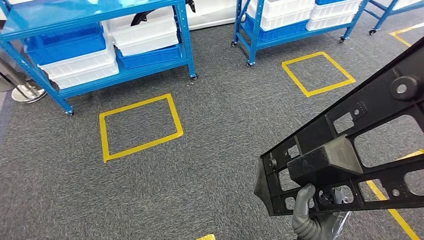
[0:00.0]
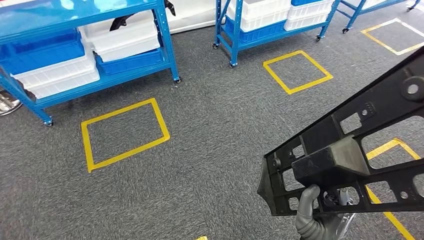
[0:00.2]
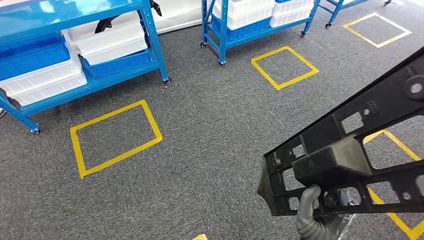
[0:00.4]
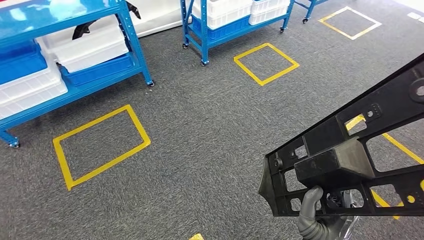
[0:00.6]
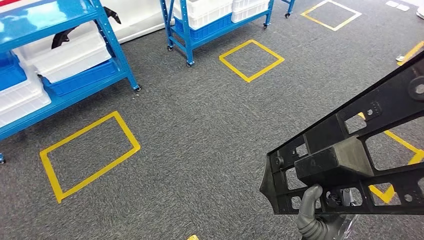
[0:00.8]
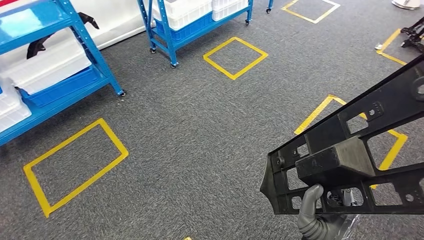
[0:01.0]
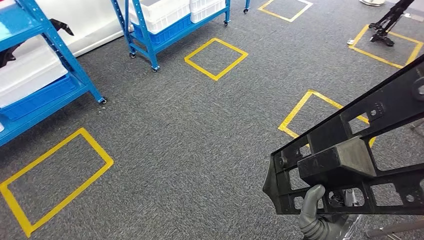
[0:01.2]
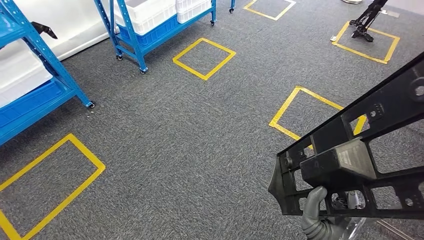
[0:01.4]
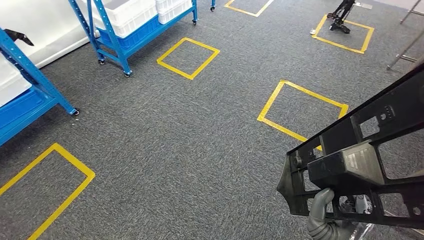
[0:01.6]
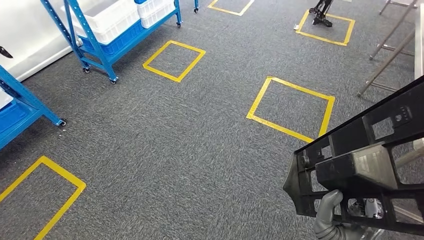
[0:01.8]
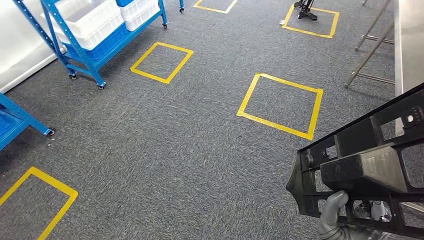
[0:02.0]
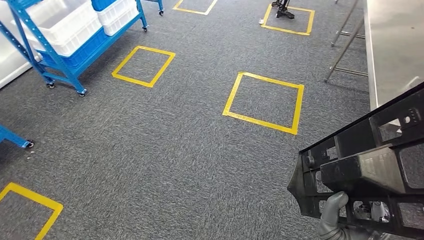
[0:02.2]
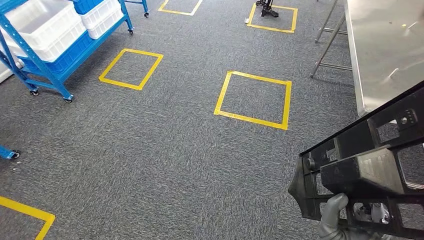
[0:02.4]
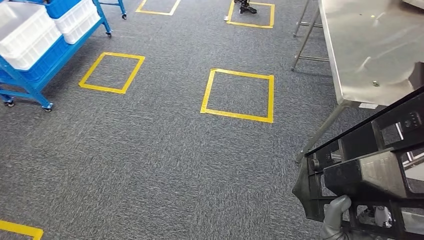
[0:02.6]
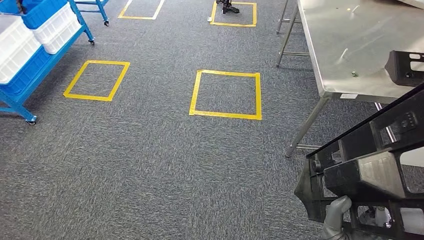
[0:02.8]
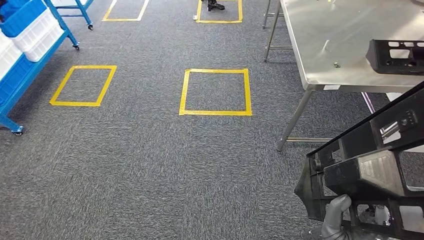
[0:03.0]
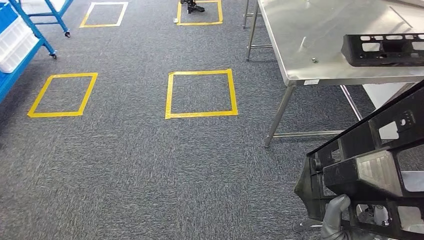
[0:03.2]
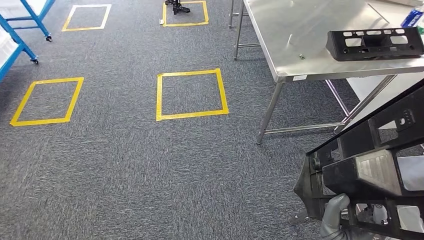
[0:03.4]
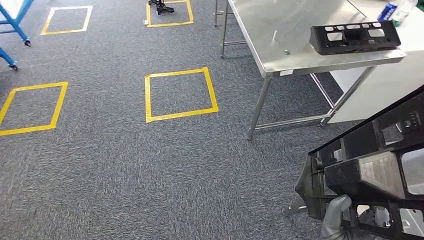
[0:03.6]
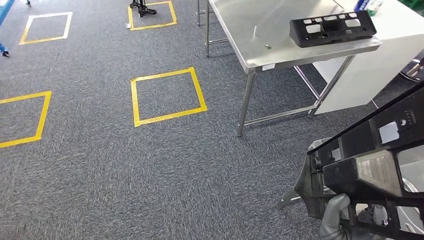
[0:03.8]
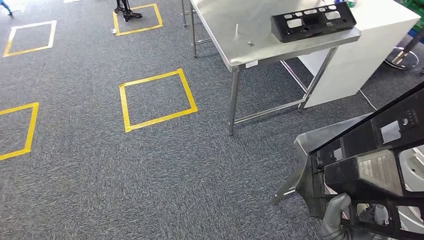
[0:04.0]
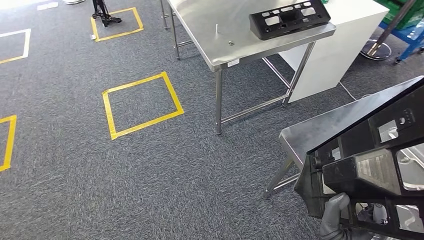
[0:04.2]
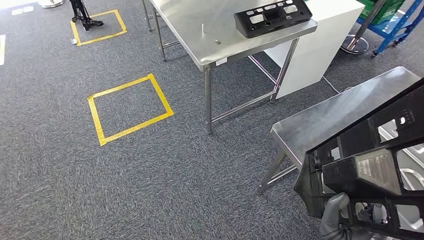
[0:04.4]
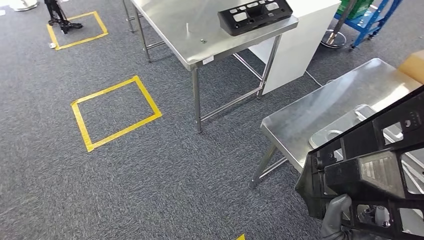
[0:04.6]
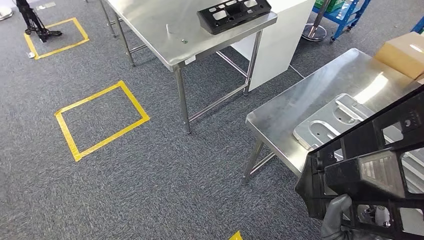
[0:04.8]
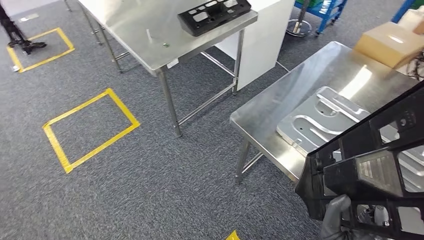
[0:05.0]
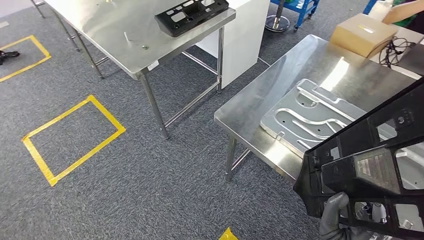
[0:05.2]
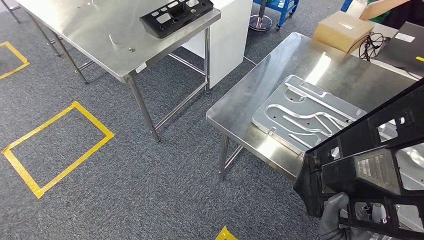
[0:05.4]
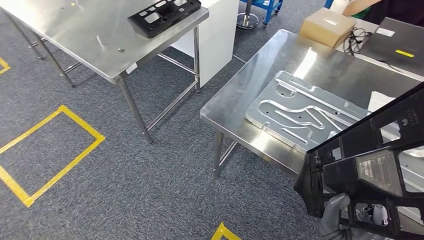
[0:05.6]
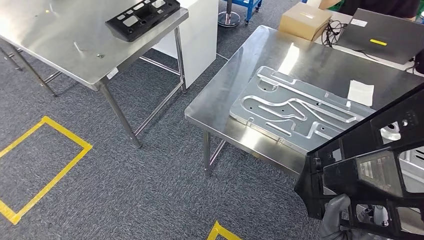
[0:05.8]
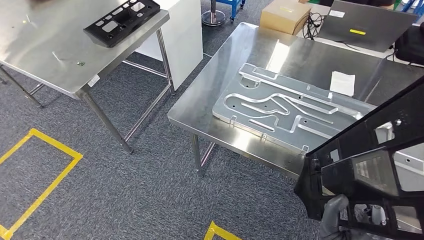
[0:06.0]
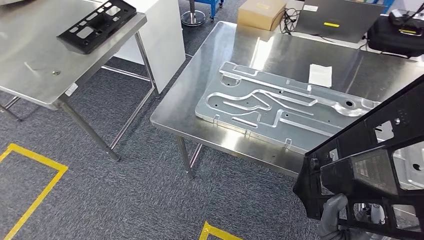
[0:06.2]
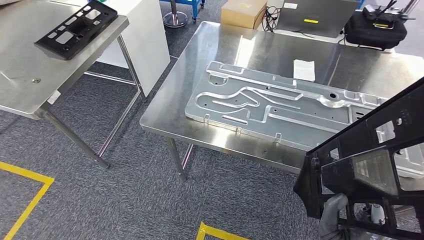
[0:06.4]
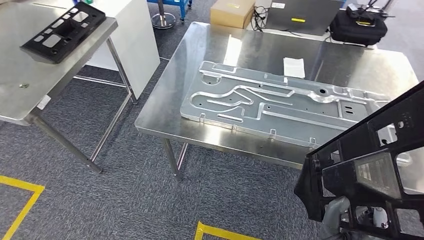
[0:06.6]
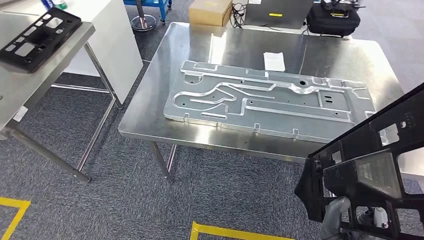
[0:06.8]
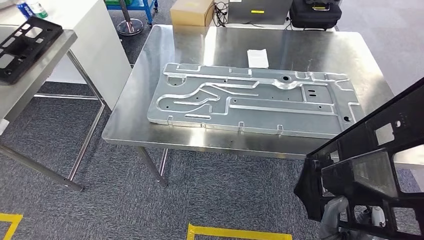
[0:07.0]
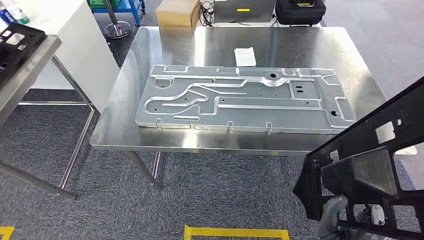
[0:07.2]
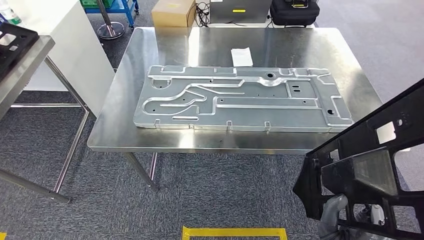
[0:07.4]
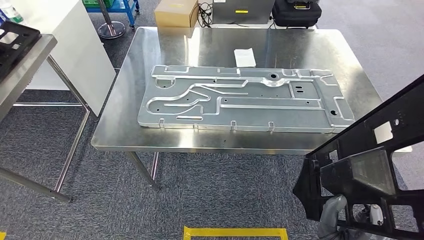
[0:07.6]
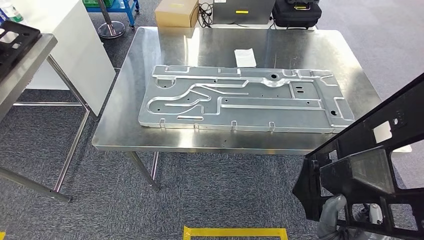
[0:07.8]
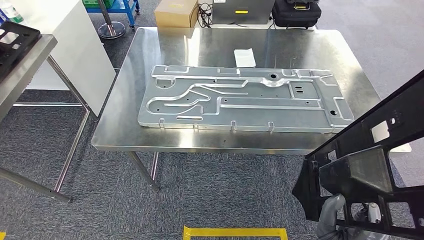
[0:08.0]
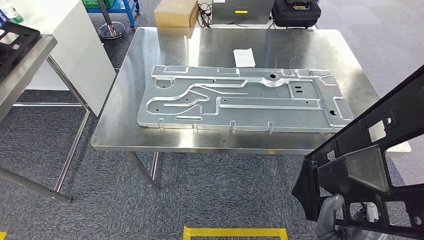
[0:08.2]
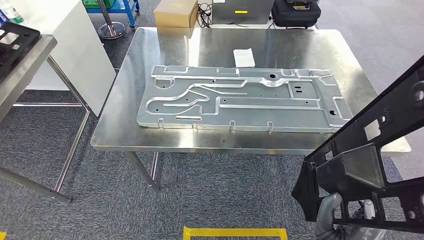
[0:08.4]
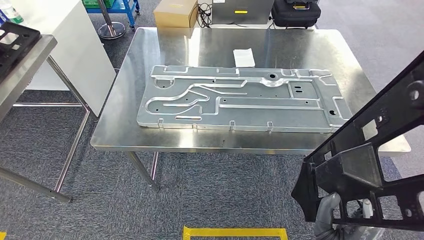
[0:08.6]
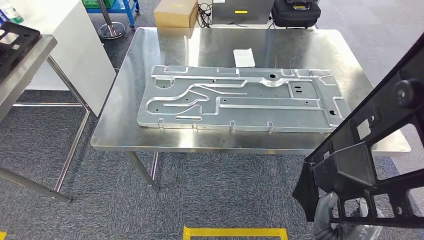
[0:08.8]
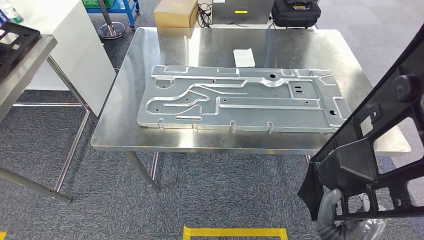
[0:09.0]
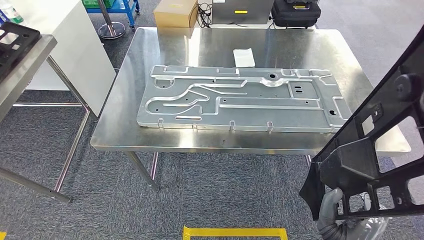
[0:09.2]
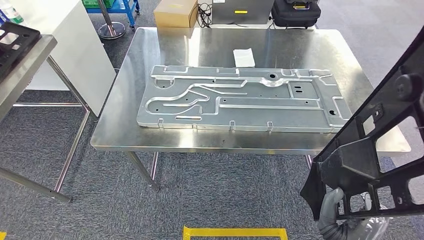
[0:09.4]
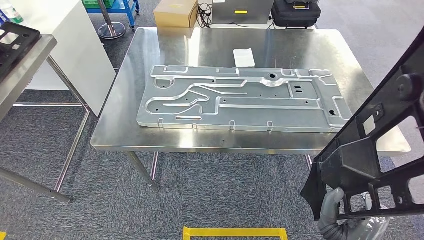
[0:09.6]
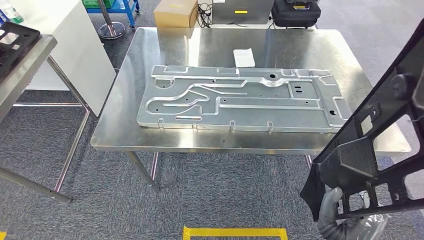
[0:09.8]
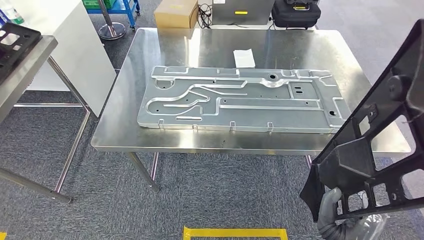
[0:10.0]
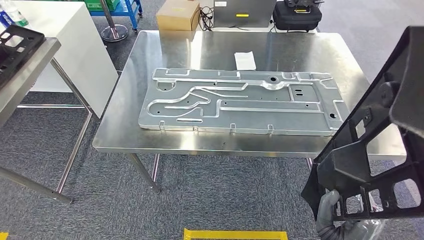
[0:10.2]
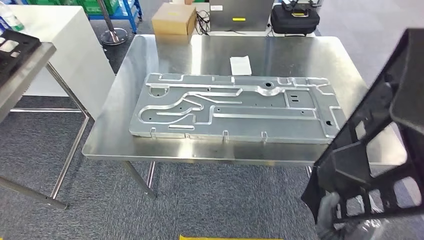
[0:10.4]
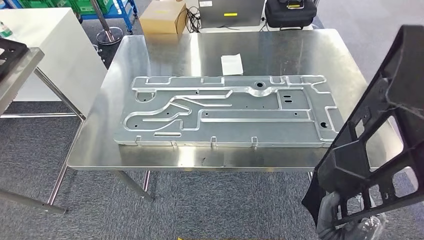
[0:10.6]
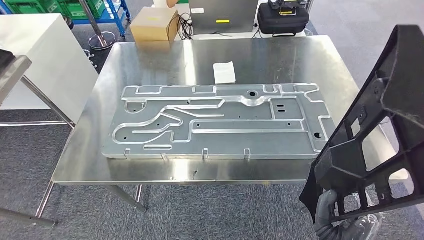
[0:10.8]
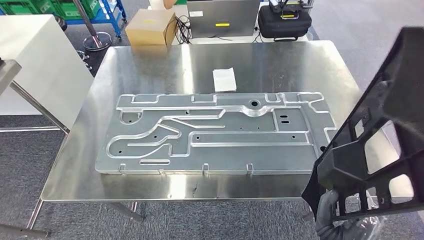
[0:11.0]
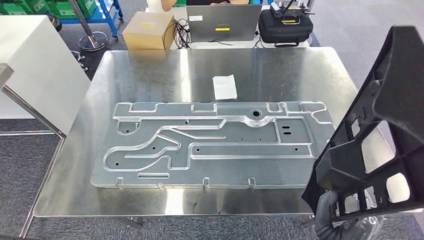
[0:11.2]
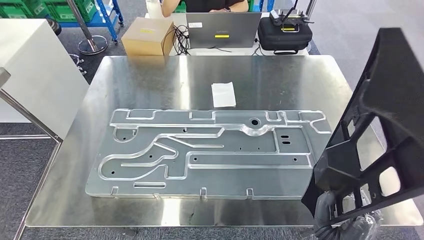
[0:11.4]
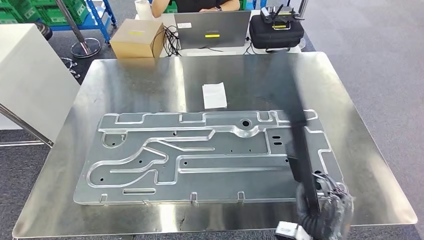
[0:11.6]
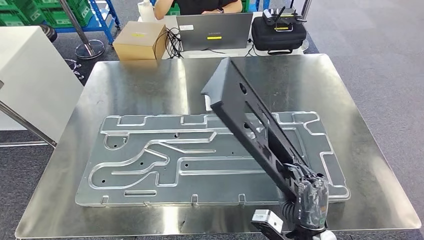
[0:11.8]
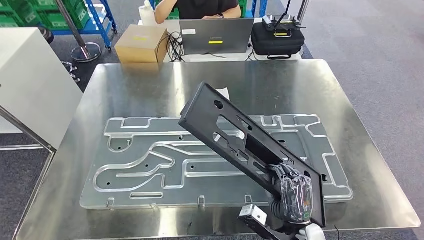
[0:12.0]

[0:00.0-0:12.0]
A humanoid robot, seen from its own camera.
Step, 0:00.0 to 0:09.0: Move the large material to the workbench.
0:07.6 to 0:09.0: The hands move only a little.

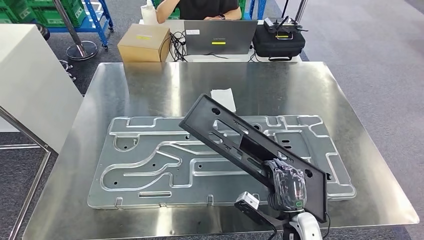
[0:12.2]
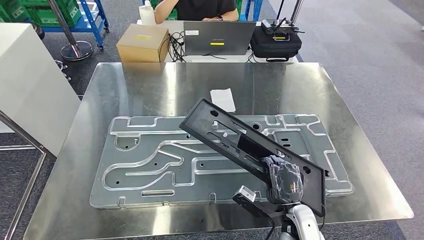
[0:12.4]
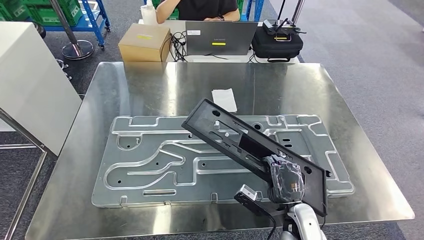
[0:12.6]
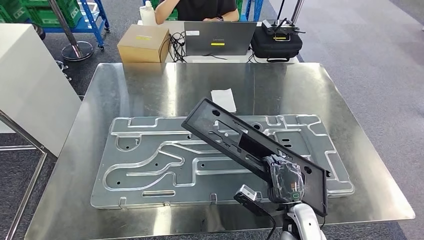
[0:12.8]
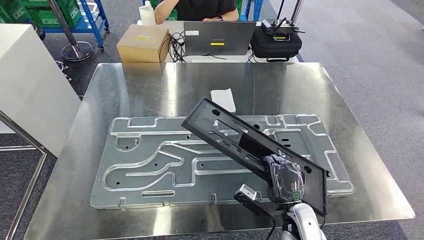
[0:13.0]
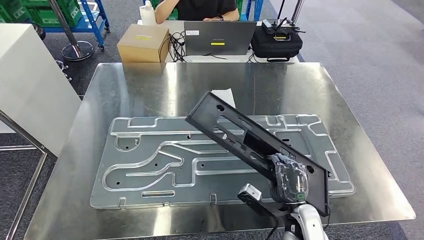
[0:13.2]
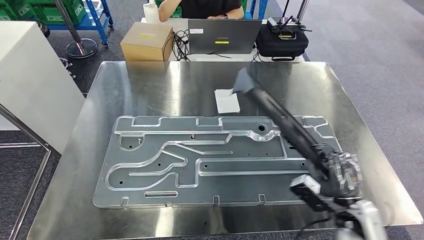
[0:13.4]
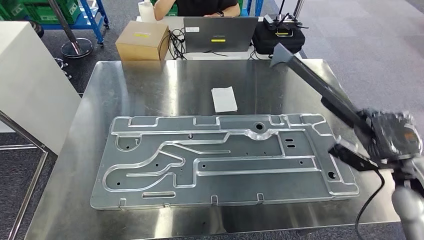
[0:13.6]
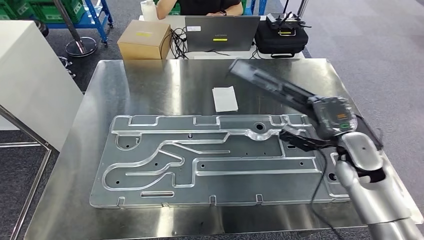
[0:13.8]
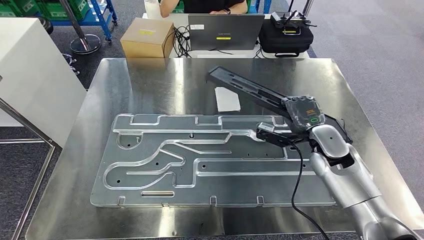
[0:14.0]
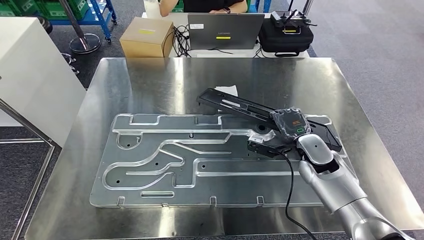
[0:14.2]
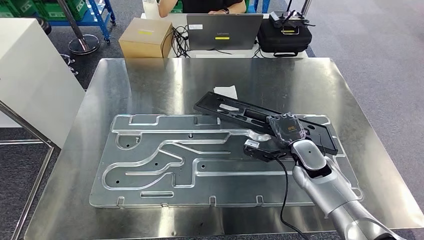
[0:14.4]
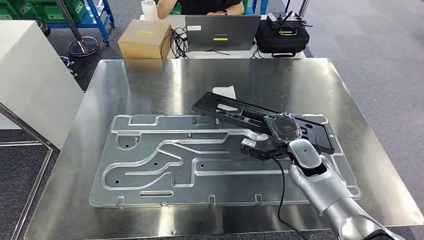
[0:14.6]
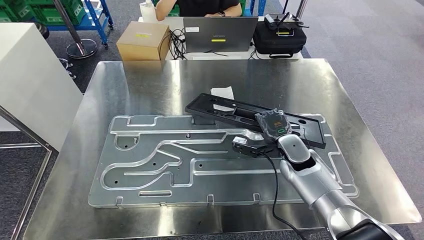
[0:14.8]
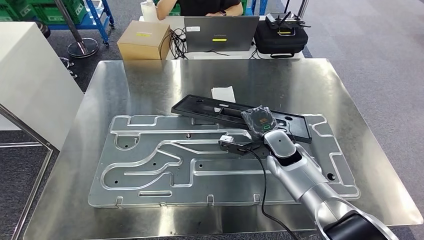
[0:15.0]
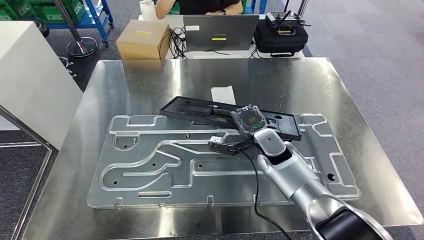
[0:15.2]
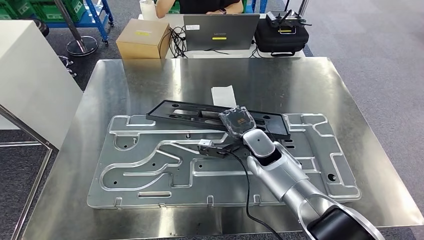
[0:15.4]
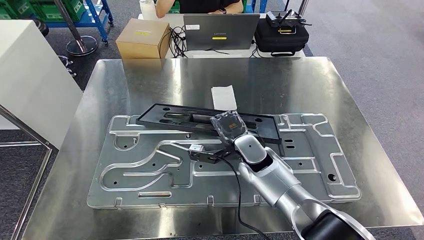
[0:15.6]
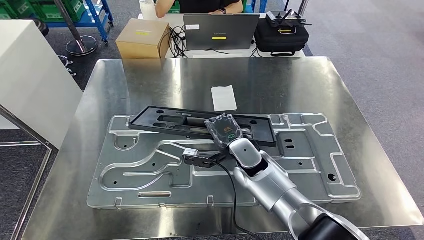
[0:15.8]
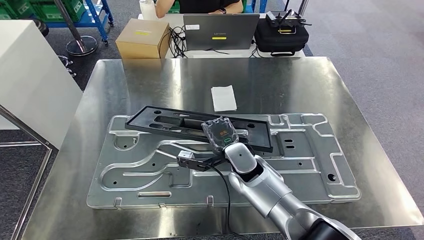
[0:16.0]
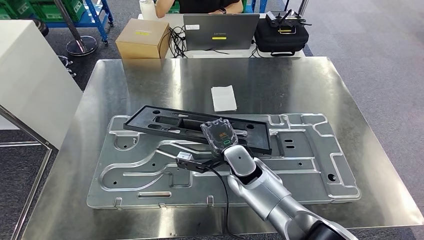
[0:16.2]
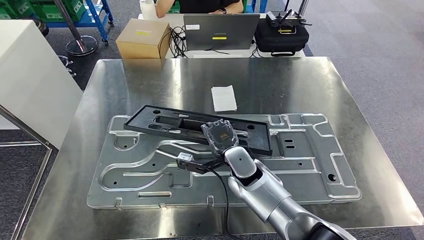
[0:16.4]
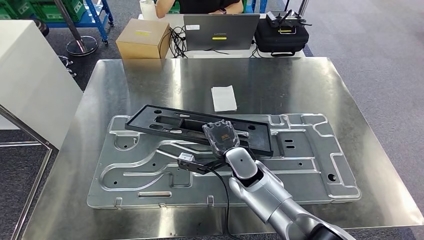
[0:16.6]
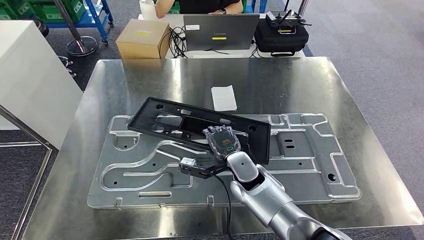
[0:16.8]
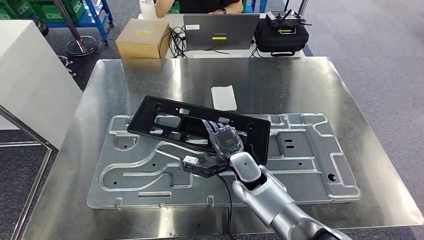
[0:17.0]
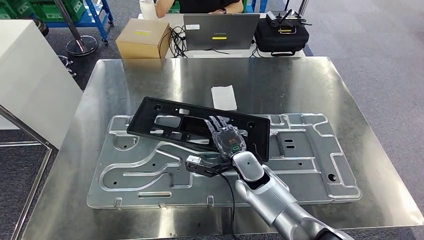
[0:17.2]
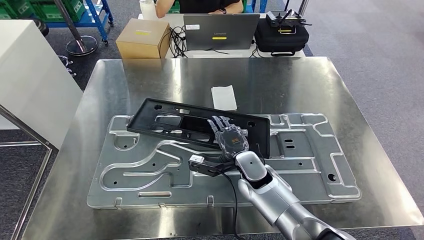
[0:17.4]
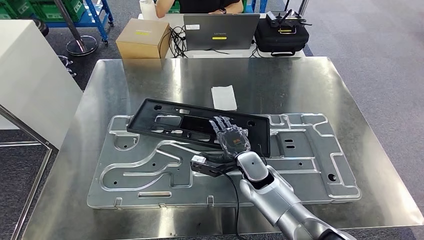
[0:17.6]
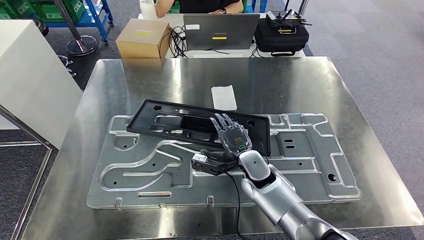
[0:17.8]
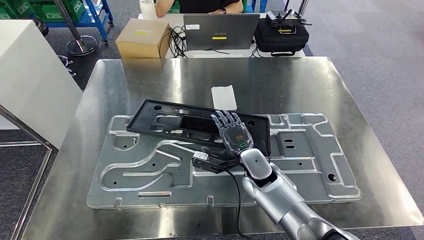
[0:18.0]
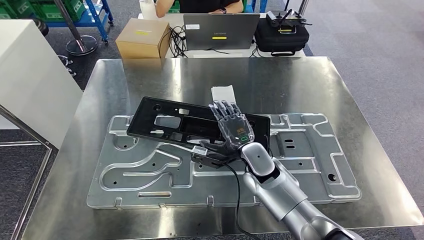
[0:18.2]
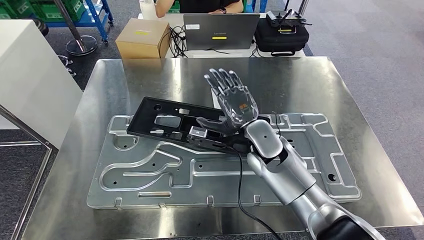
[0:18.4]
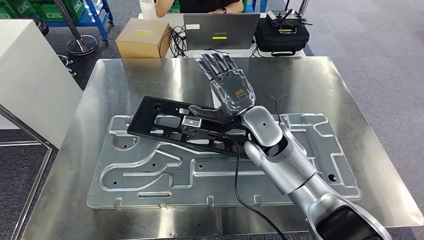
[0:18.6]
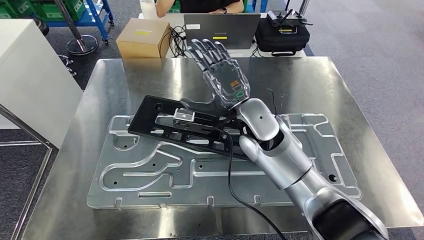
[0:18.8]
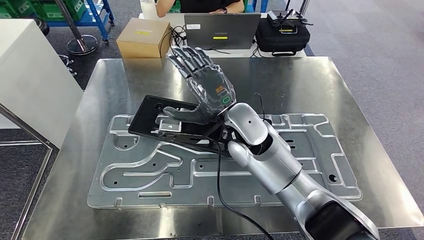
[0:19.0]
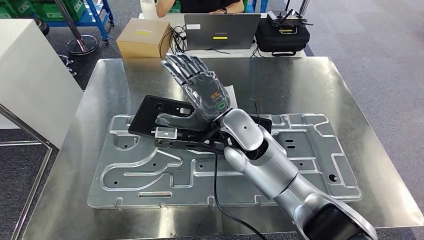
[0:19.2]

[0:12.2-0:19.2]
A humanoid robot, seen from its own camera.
0:16.4 to 0:17.8: There are only small adjustments of the hands.
0:17.8 to 0:19.2: The right hand moves upward, some 15 cm.
